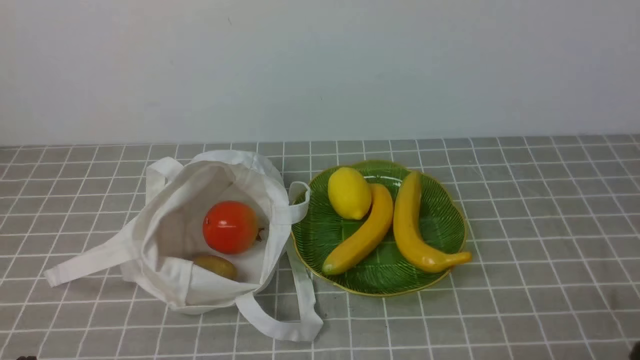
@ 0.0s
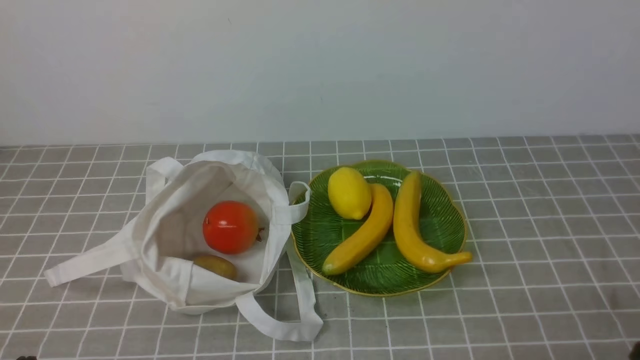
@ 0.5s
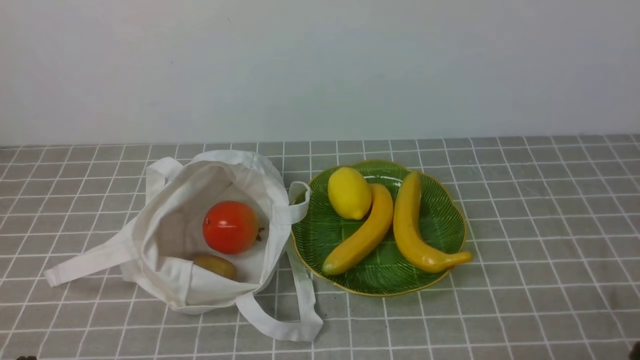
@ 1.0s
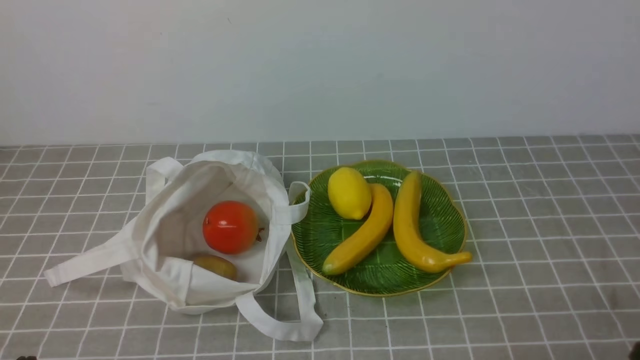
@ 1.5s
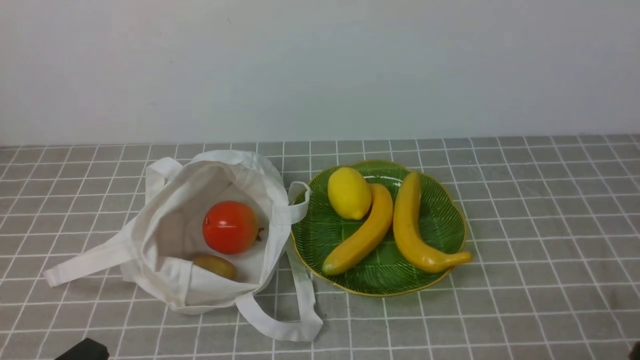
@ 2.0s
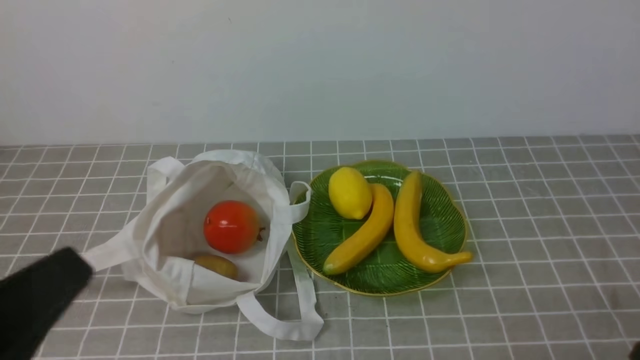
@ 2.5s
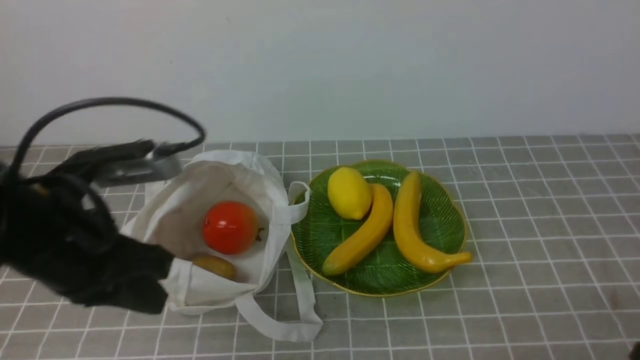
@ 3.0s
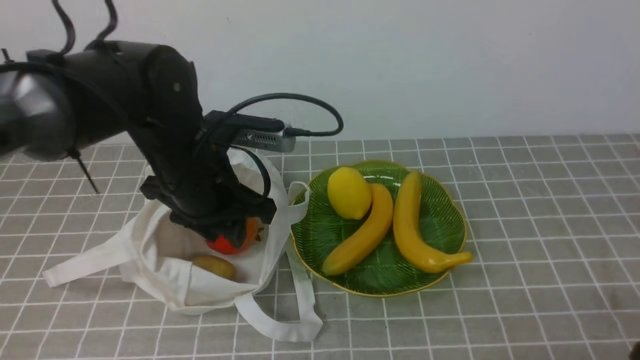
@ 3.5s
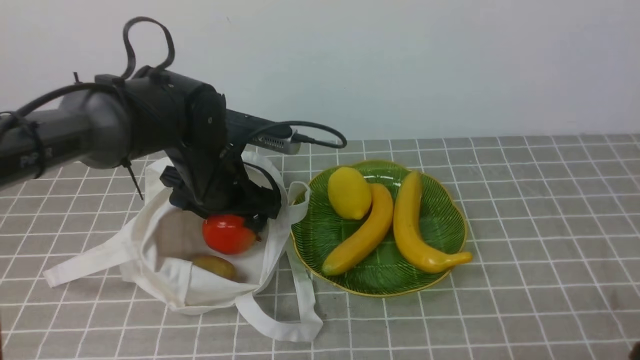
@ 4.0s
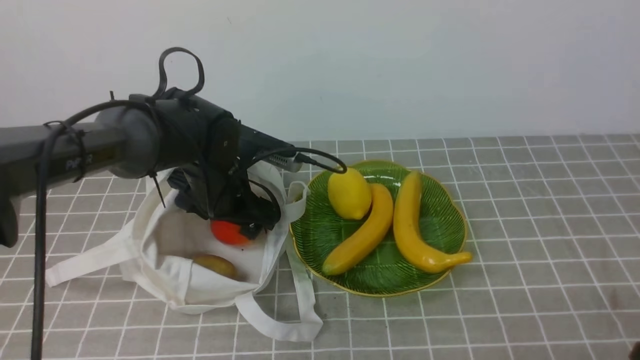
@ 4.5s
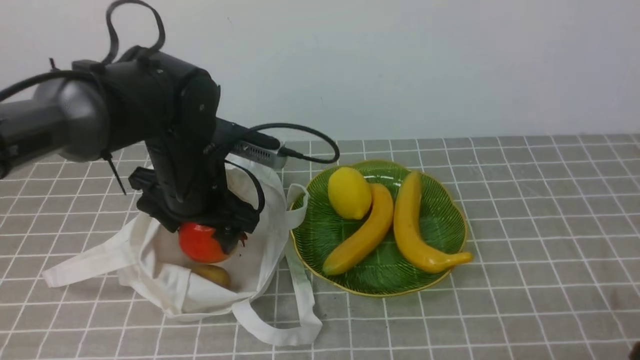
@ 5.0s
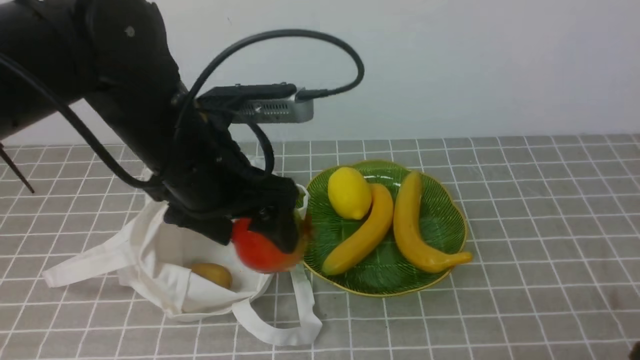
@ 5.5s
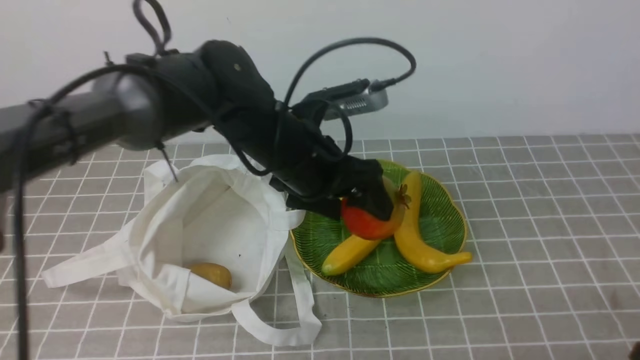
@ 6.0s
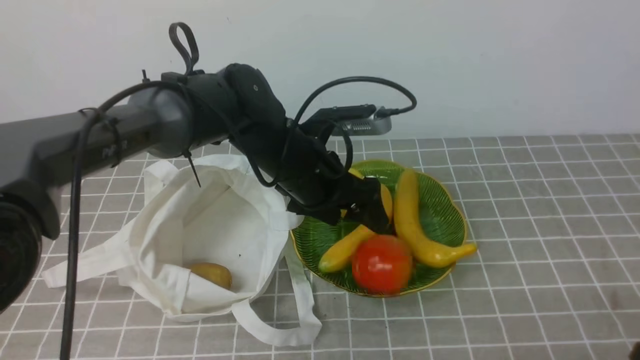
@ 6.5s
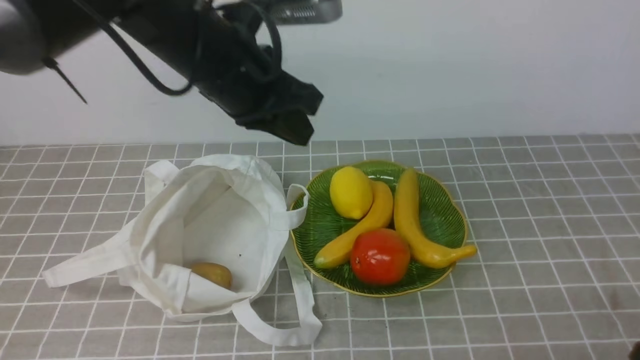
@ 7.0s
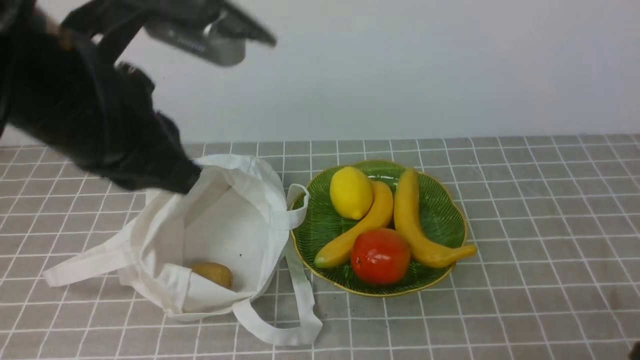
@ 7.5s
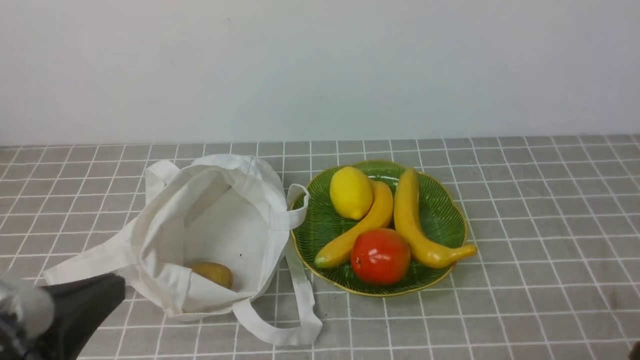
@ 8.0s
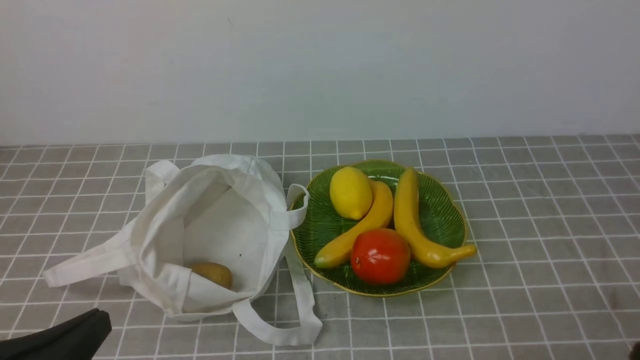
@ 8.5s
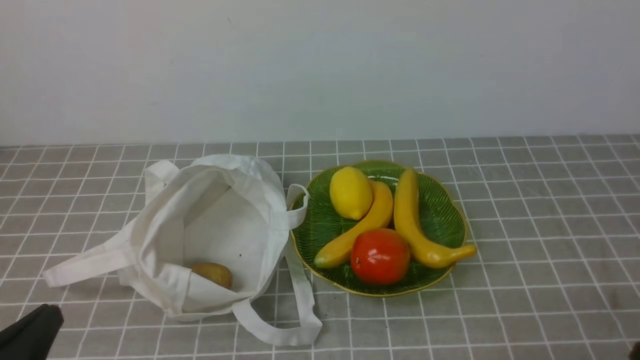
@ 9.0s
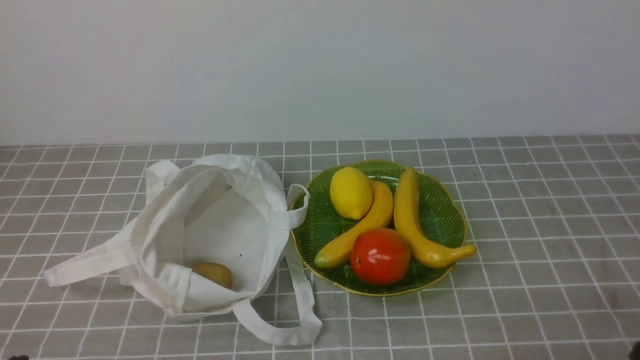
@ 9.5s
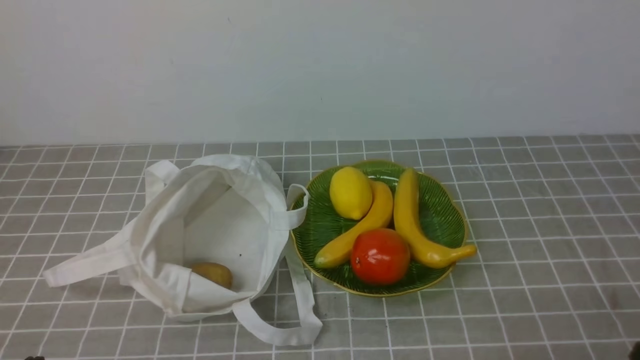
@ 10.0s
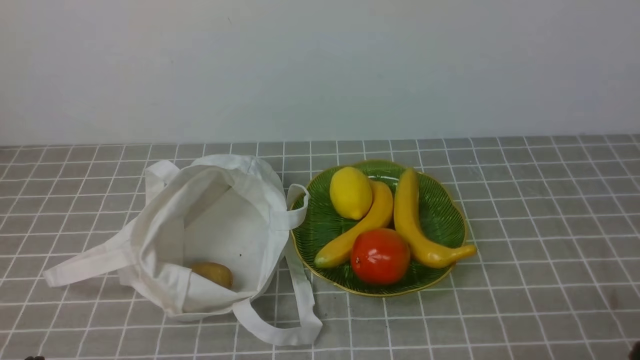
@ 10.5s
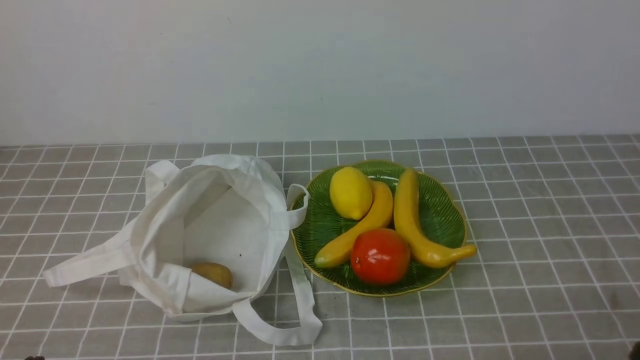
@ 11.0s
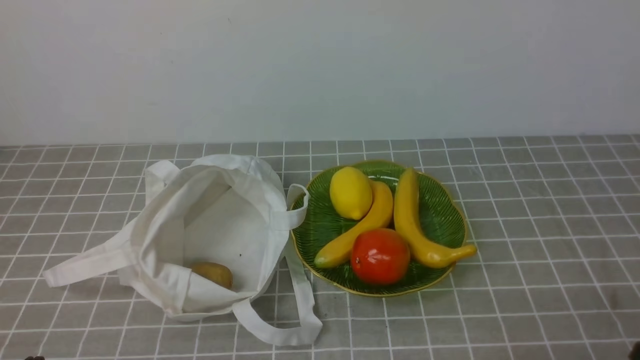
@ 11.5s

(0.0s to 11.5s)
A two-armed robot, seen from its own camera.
Step, 0.0s - 4.5s: use the left arm to grab a pomegranate from the bag.
Step, 5.0s - 6.5s: use the left arm to put the pomegranate into the empty plate on the right.
2.0s - 4.0s: The left gripper shifts approximately 30 cm forward, and opens up.
4.0s - 6.0s: The left gripper goes up and down, approximately 10 cm each way, reversing 2 times.
6.0s - 7.5s: The left gripper heads upward, to the left and backward, covering about 20 cm, and closes.
7.5s - 9.5s: The left gripper moves downward, backward and to the left, some 30 cm.
9.5s - 11.5s: Both grippers stay about where they are.

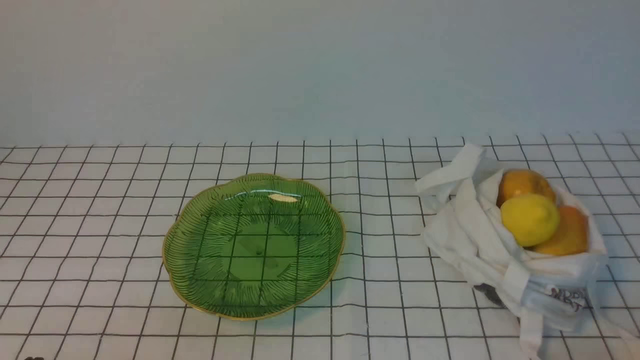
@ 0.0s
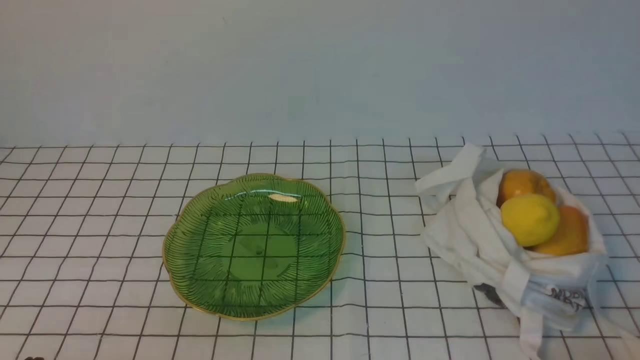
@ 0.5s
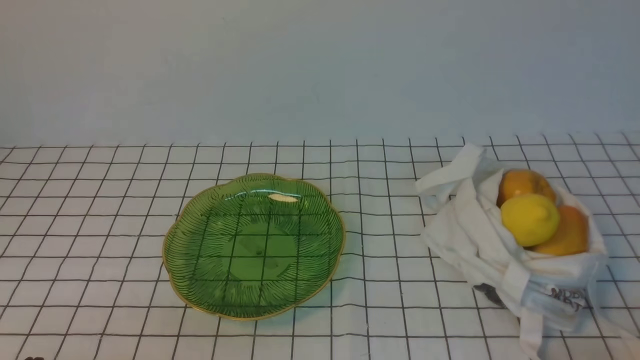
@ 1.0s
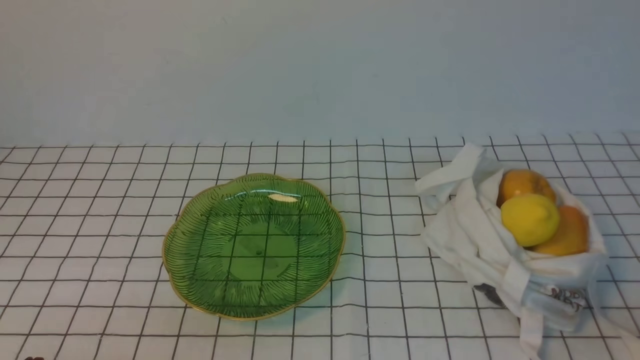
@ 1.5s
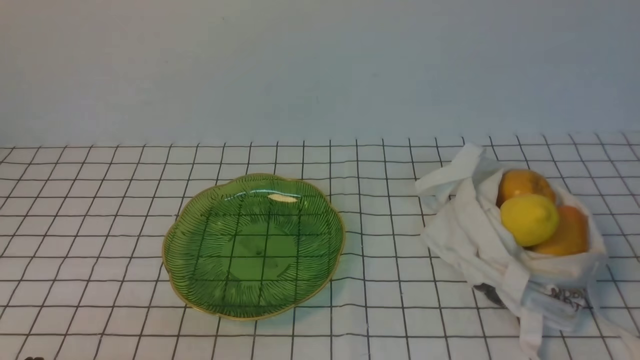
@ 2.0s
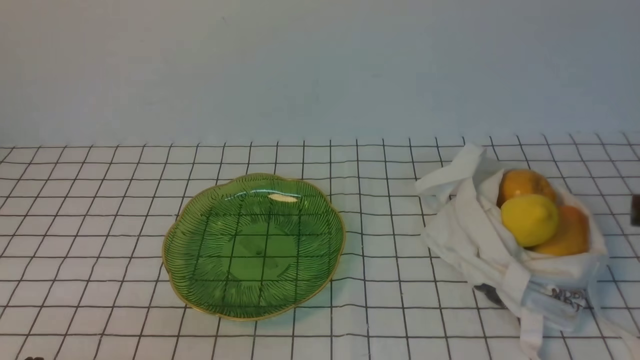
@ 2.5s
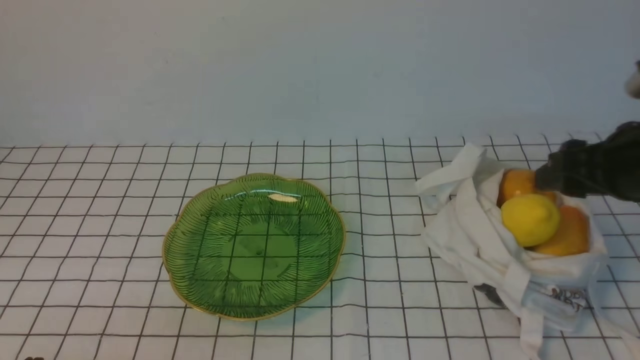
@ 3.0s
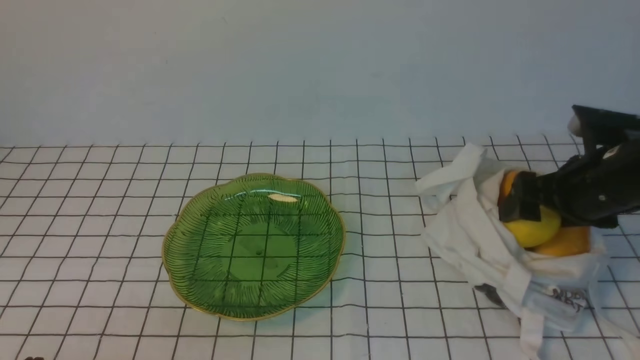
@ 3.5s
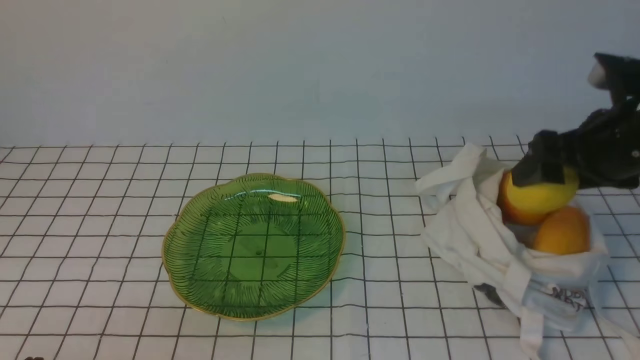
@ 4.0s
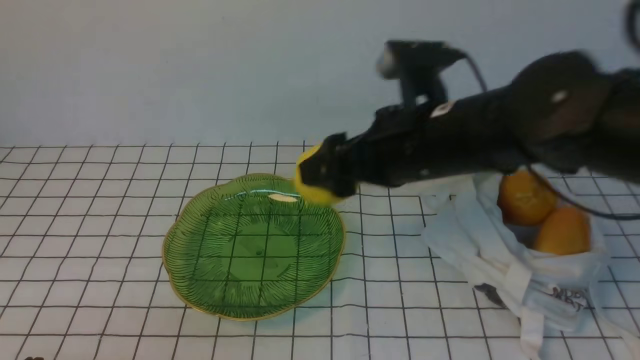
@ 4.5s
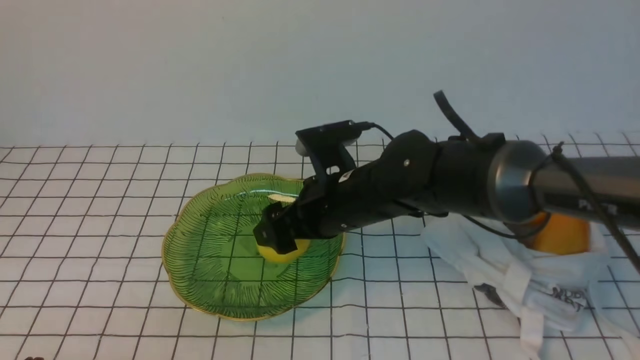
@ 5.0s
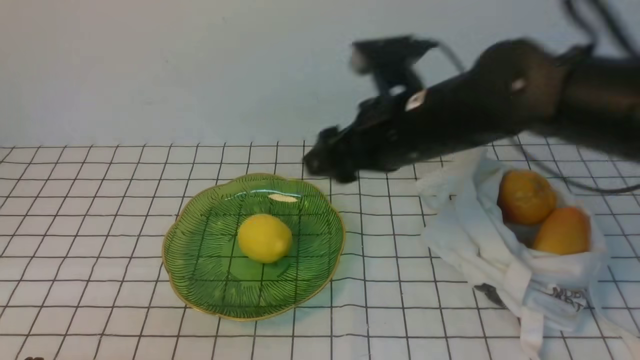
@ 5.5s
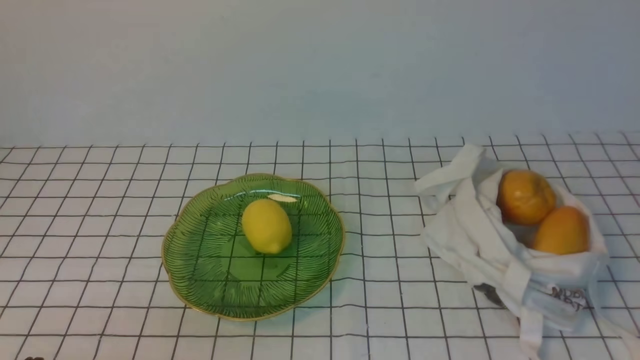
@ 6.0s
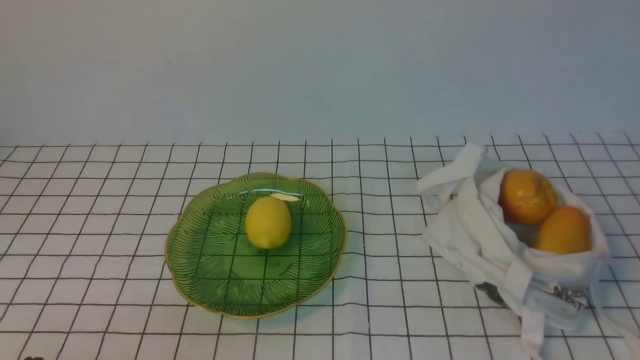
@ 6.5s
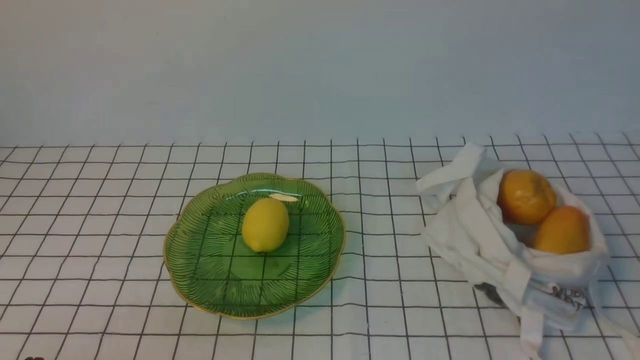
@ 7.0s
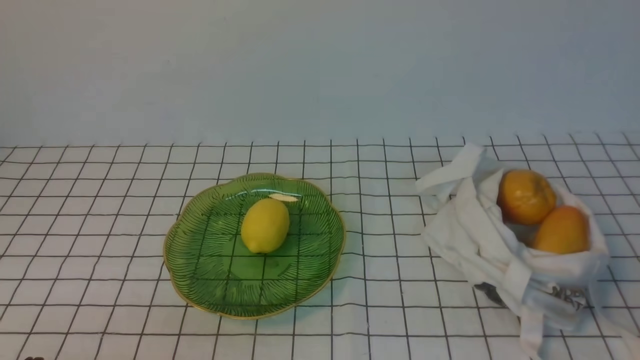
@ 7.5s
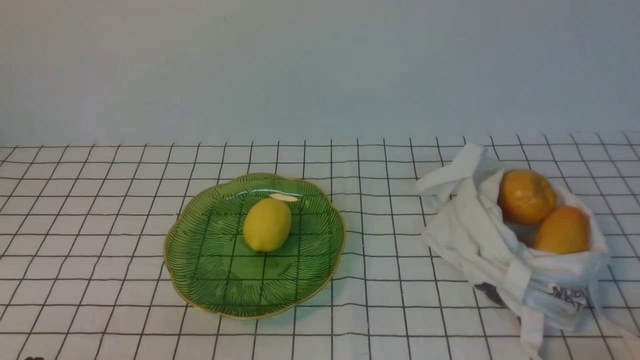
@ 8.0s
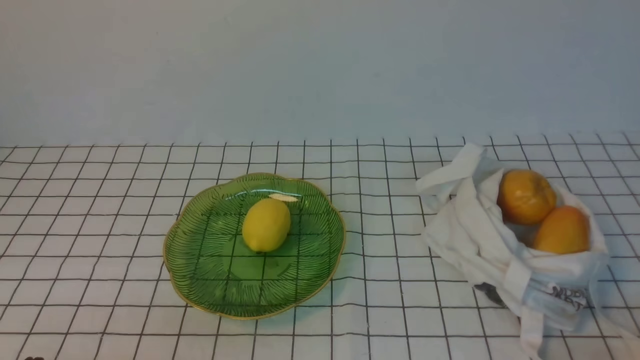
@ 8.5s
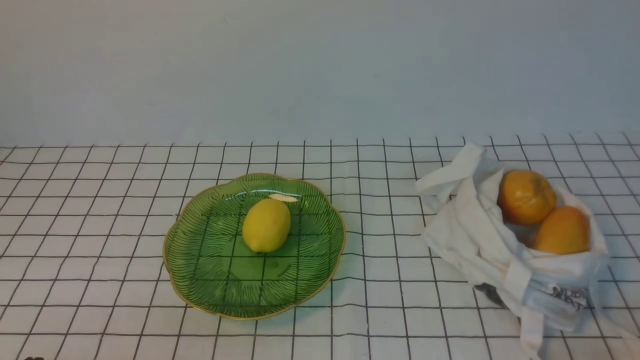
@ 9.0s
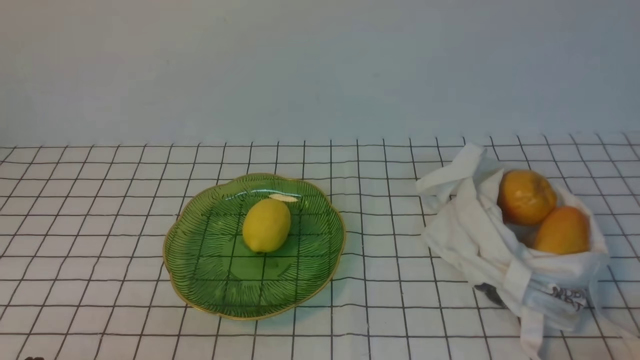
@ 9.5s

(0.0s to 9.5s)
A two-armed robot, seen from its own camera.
Step, 0.0s - 3.5s: use the right arm to grab a lemon from the bag.
Step, 4.0s - 5.0s: use the right arm to put the lemon into the empty plate on the left.
2.0s - 4.0s: The right gripper goes some 25 cm forward, and opens its fingers.
4.0s - 5.5s: The right gripper travels to the left by roughly 15 cm.
5.5s - 7.5s: The right gripper heads backward and to the right, covering approximately 35 cm, and closes its fingers.
